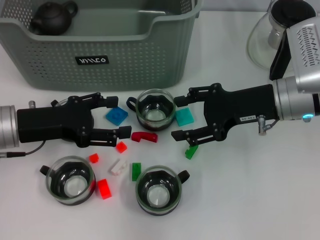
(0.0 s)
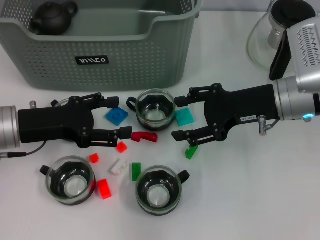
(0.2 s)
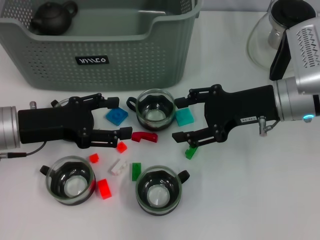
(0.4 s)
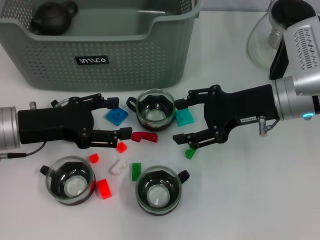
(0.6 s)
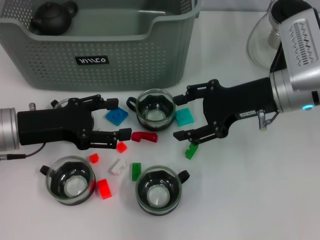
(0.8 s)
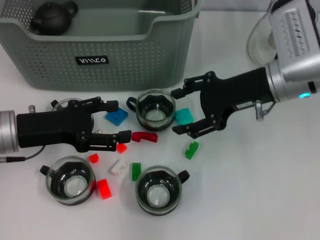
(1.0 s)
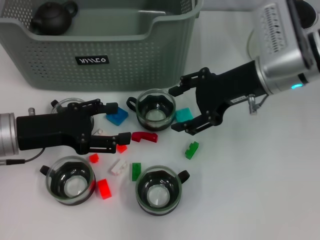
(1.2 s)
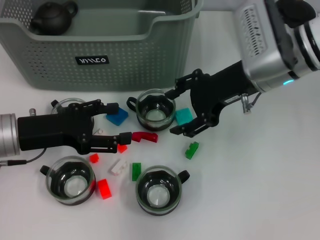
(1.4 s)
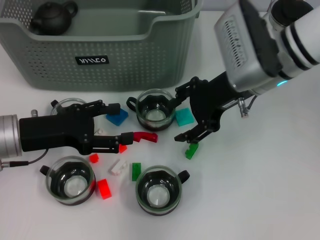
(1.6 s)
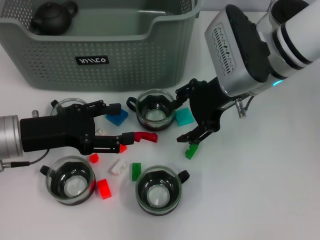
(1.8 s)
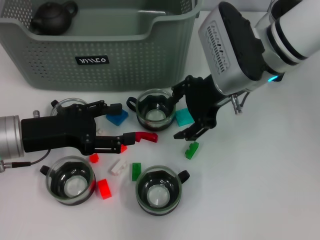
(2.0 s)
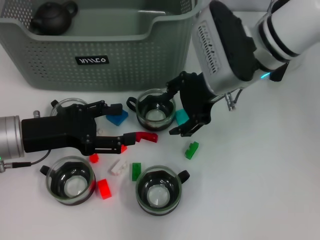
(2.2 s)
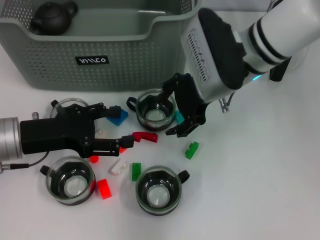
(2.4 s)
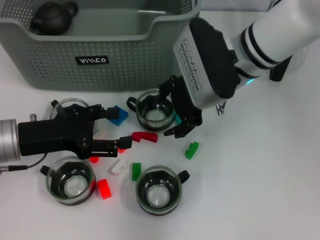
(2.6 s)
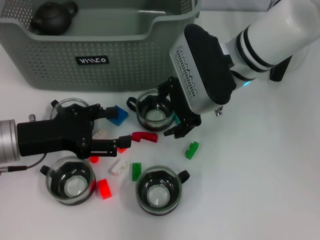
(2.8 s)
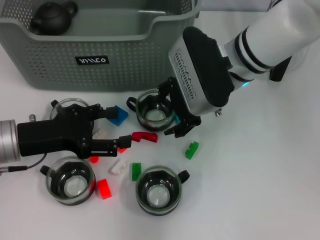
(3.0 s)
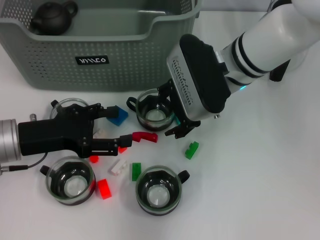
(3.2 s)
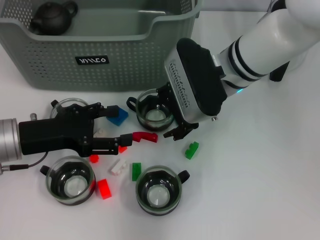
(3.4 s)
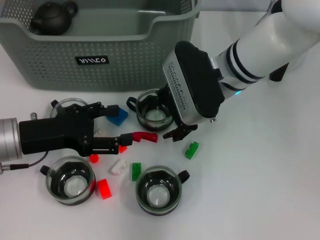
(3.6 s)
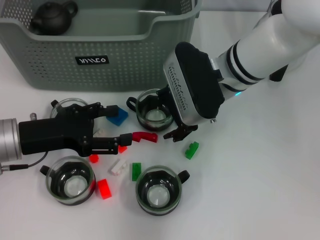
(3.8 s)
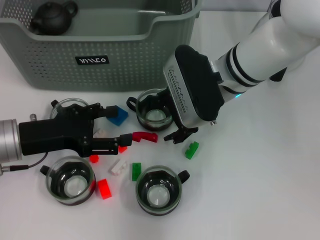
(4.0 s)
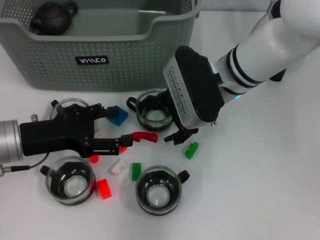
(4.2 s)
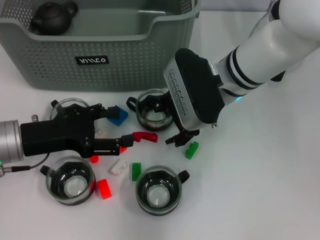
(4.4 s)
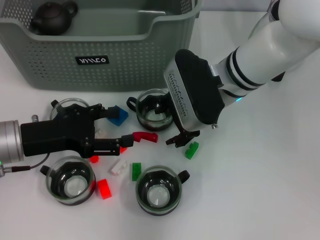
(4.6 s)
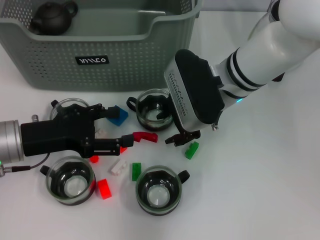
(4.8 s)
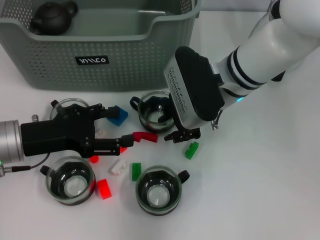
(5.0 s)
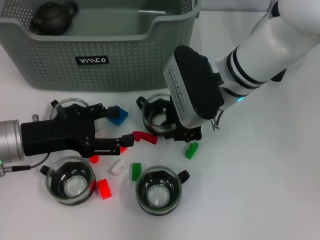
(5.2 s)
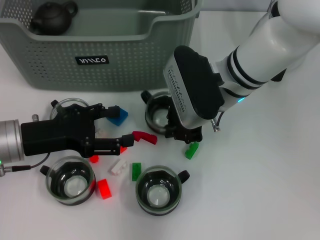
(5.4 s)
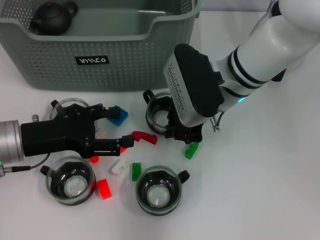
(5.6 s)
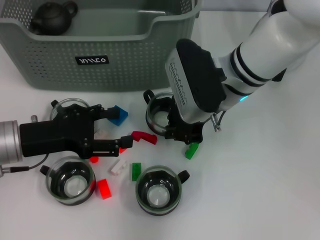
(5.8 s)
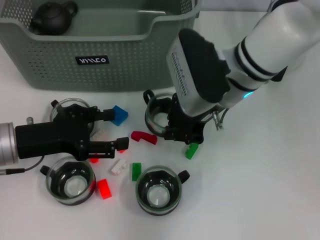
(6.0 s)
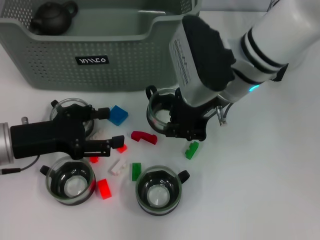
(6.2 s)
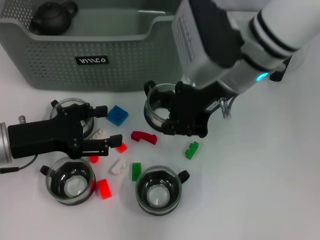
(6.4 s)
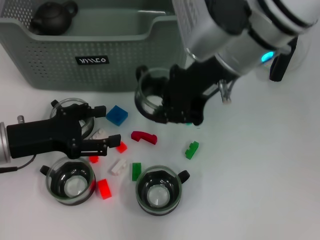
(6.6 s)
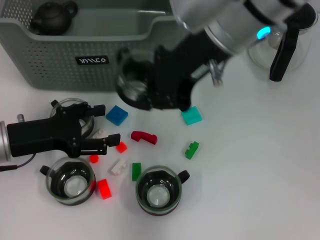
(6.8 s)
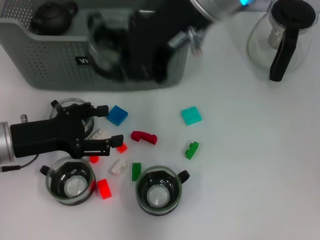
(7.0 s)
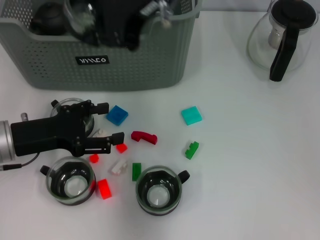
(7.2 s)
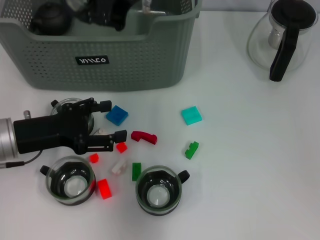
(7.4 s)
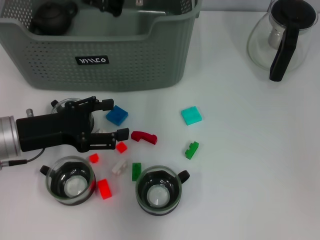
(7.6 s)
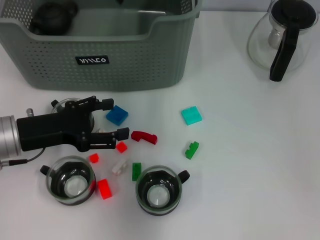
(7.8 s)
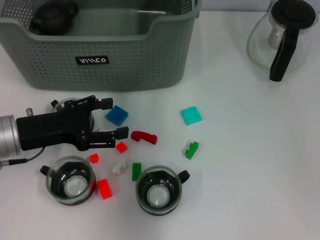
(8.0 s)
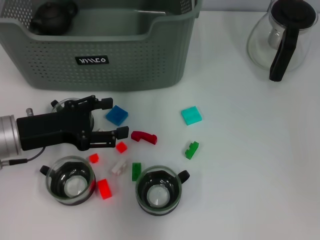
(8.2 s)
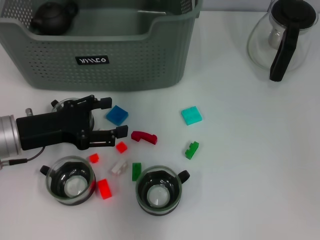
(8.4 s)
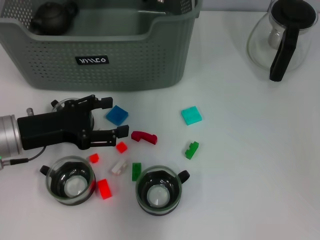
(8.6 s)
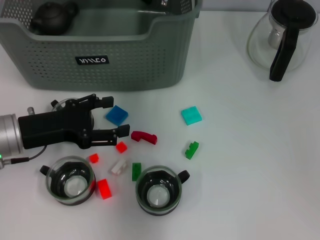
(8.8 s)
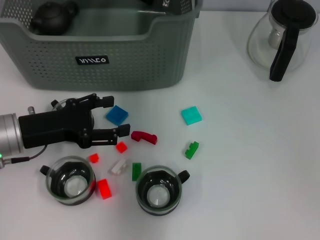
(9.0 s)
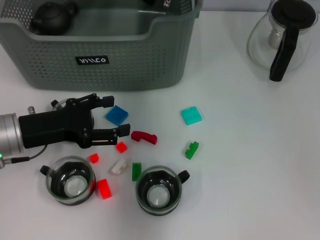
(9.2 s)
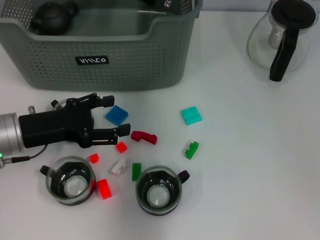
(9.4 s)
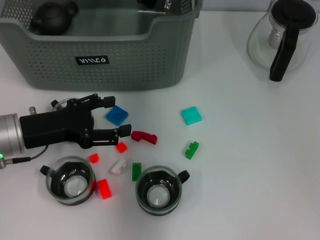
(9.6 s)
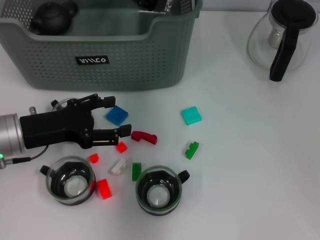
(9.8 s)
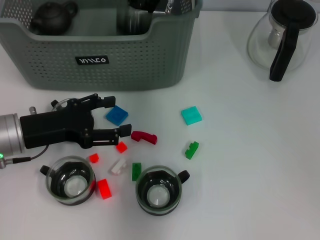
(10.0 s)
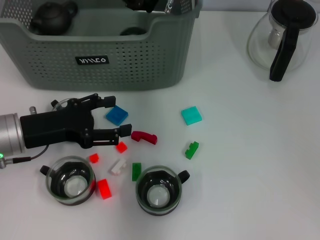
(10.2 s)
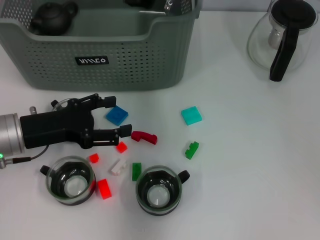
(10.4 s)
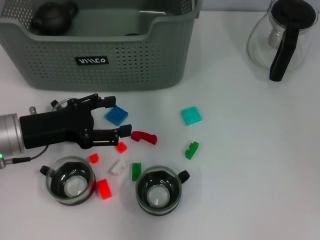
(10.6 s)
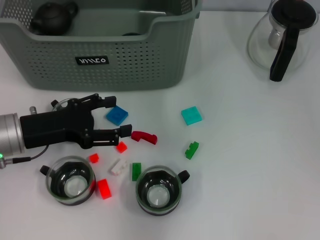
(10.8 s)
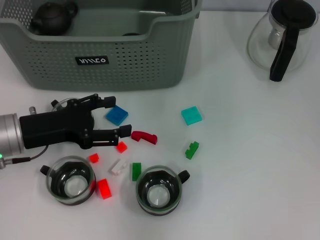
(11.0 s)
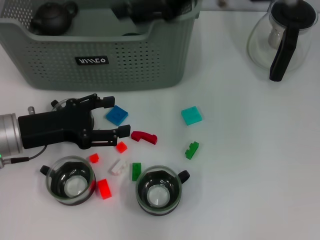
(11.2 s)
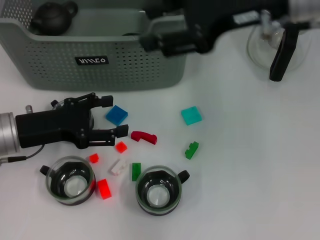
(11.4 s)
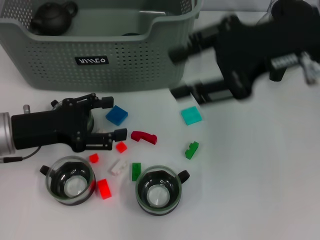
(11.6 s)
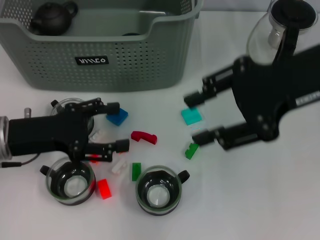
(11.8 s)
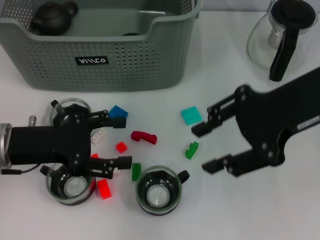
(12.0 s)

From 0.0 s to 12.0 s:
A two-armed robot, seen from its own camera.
Task of the whole recording: pick up the teacup on the table and place it into the storage bin, pick up the block on the table and place it into the storage bin.
Step, from 0.0 s to 5.2 s: Grasp the cup with right gripper.
Step, from 5.4 s to 10.6 s: Place the cup in the storage box with right gripper.
From 0.0 s to 1.6 s: The right gripper heads to the left, covering approximately 5 cm.
From 1.6 s to 3.0 s: There are only small adjustments of the grippers.
From 3.0 s to 4.4 s: There are only small adjustments of the grippers.
From 4.4 s to 6.0 s: The right gripper closes.
From 6.0 s to 7.6 s: The right gripper moves upward, to the left and forward, about 15 cm.
From 7.6 s to 9.0 s: The right gripper travels downward by roughly 5 cm.
From 9.0 s to 10.4 s: The right gripper opens its fingers.
From 10.4 s to 12.0 s: The right gripper shifts some 20 cm backward and to the right.

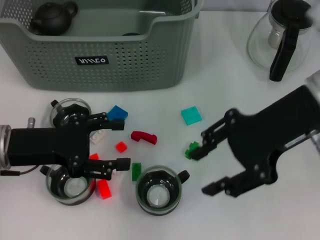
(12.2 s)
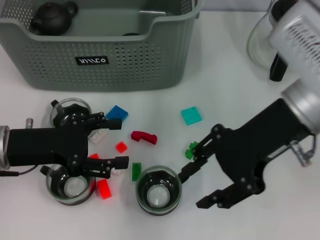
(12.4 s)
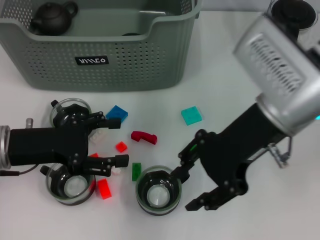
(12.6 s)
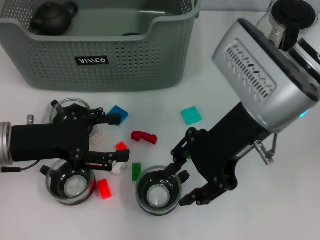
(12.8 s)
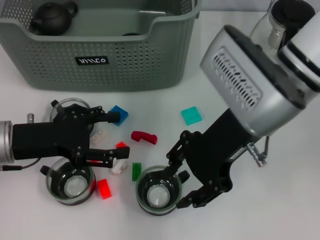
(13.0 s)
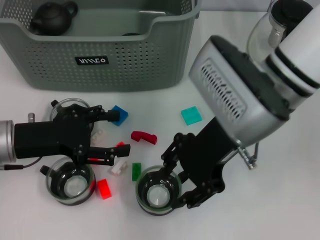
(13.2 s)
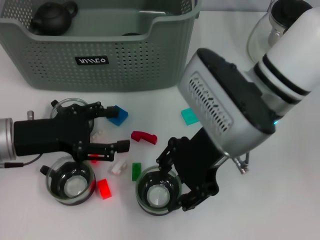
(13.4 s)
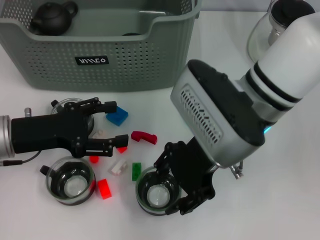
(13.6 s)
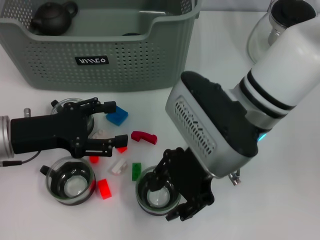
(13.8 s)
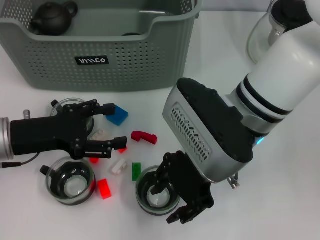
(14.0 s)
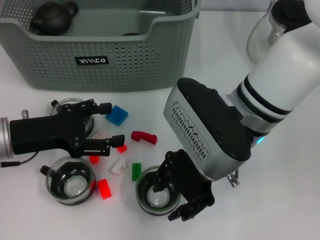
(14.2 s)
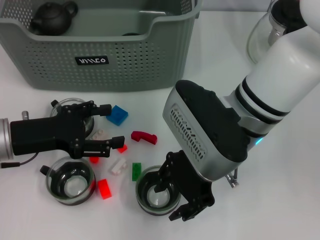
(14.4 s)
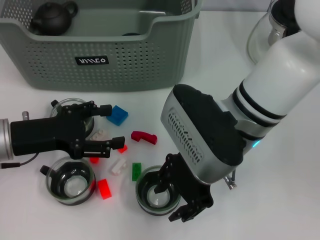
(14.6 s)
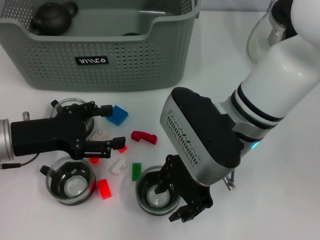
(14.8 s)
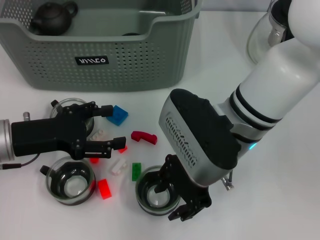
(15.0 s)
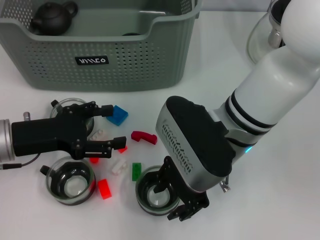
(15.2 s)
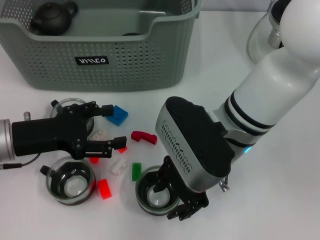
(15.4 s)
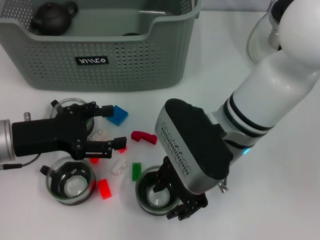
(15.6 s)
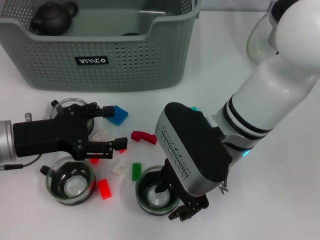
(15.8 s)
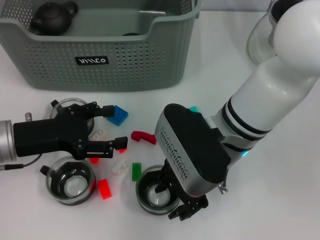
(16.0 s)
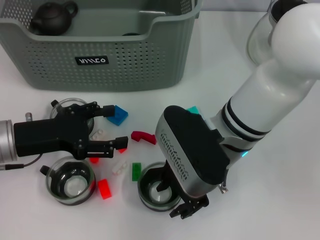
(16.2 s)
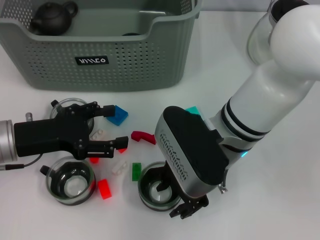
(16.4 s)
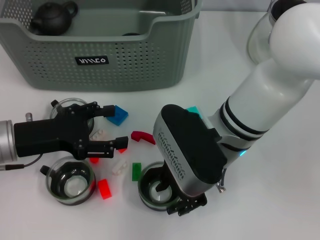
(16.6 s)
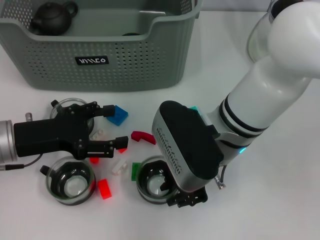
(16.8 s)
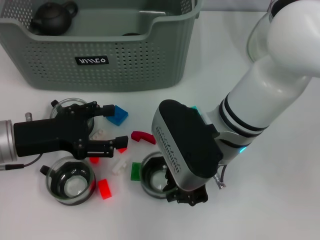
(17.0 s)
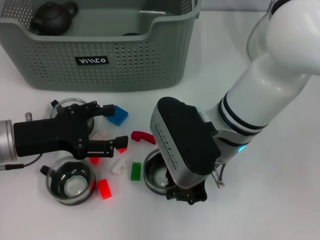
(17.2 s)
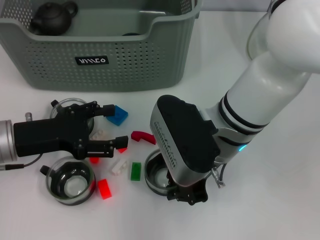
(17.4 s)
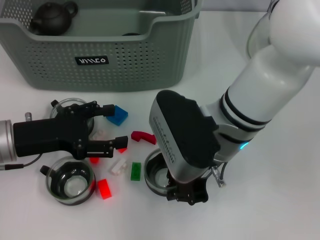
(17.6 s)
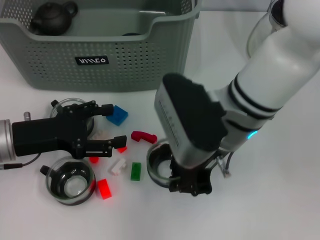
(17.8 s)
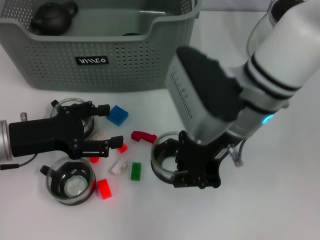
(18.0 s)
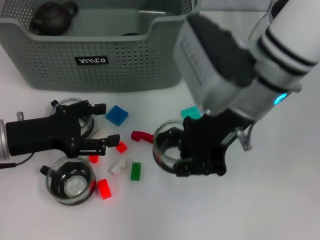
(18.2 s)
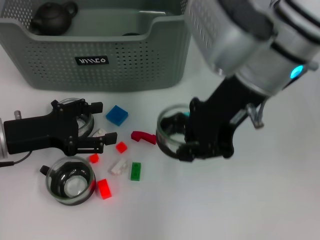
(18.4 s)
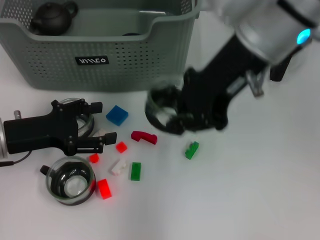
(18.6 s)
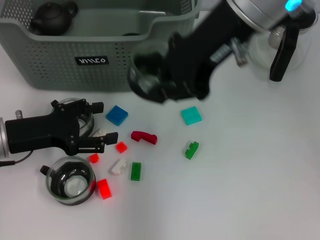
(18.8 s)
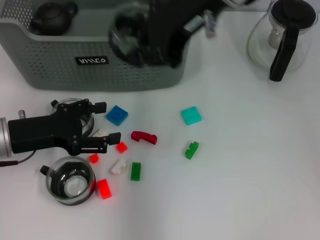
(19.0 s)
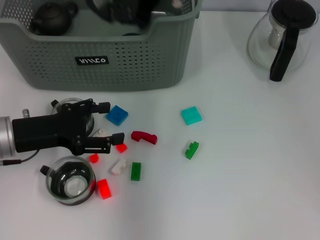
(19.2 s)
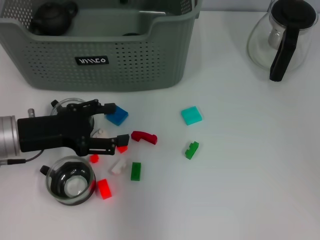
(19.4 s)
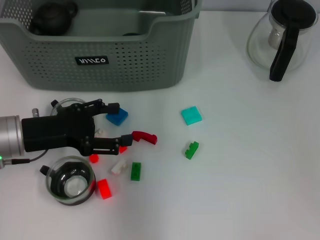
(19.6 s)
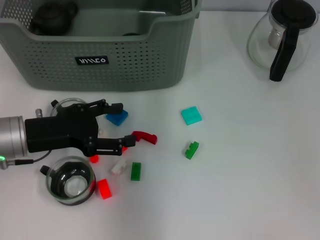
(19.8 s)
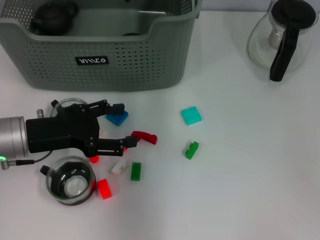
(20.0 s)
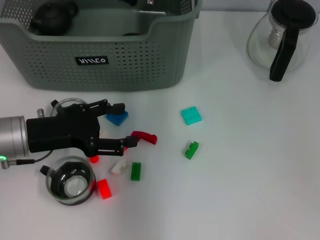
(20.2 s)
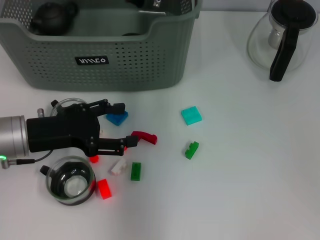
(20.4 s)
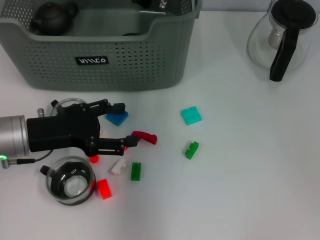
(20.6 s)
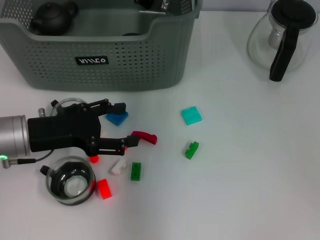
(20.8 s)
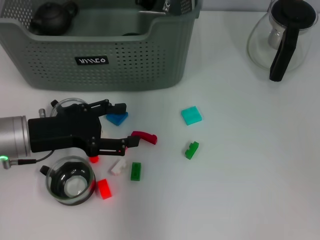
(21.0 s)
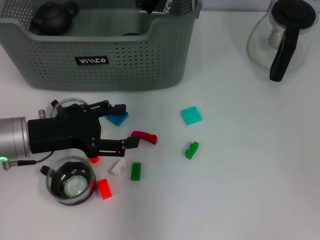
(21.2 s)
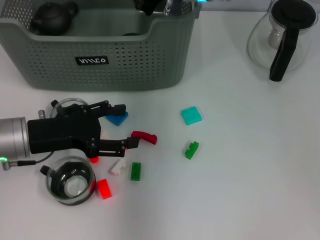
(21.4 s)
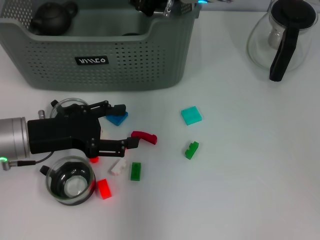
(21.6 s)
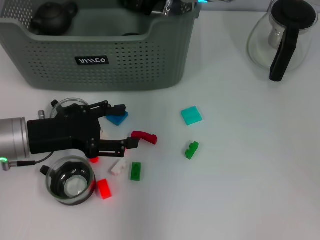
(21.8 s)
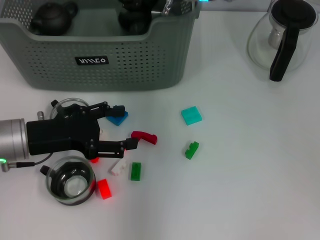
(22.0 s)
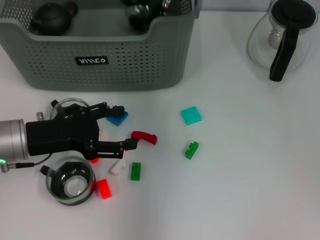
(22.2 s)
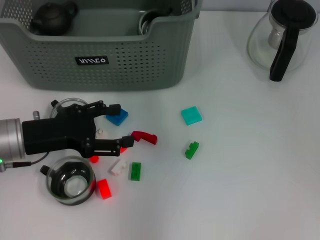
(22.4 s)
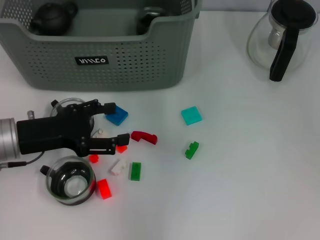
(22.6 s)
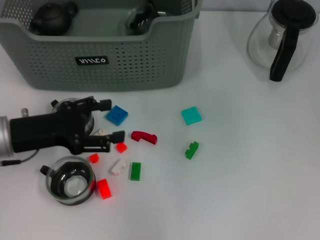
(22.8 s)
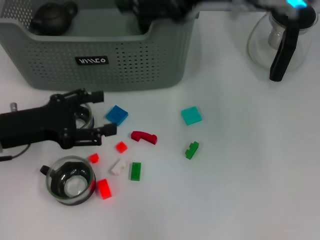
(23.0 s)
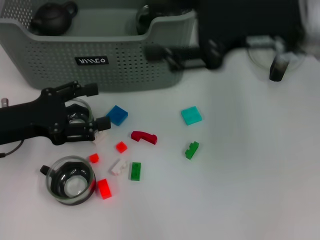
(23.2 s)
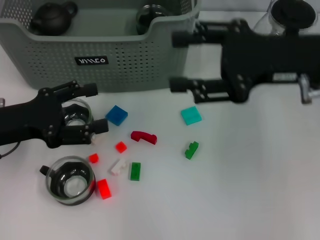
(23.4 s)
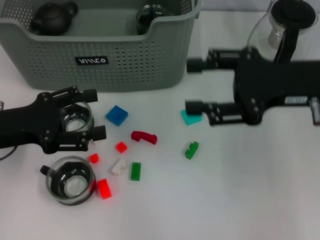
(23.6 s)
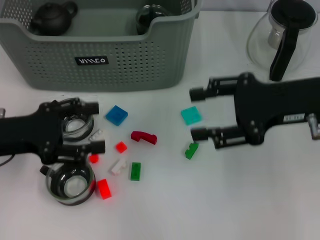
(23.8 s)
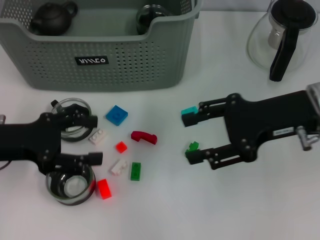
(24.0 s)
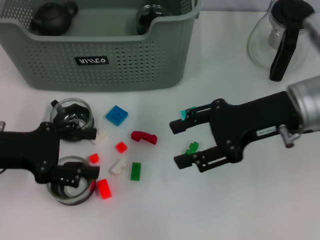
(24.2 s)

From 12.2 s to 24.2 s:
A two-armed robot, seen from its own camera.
Task of the whole recording: pick up the teacup on the table and place it into the storage bin, pick up the block on the table and place it into the storage bin.
Step, from 12.2 s to 17.2 s: Grasp the cup with right gripper.
Step, from 17.4 s to 22.8 s: Place the cup in the storage box with right gripper.
From 12.2 s to 13.8 s: The right gripper shifts roughly 10 cm to the left and downward.
From 13.8 s to 16.6 s: There are only small adjustments of the grippers.
From 16.6 s to 18.2 s: The right gripper shifts approximately 10 cm upward, and closes up.
From 18.2 s to 19.8 s: The right gripper shifts roughly 15 cm forward and to the left.
From 19.8 s to 21.2 s: The right gripper changes place by roughly 5 cm.
From 21.2 s to 22.6 s: The right gripper is displaced upward by some 5 cm, and opens its fingers.
From 22.6 s to 24.2 s: The right gripper moves to the right, backward and downward, roughly 20 cm. The left gripper changes place by about 5 cm.